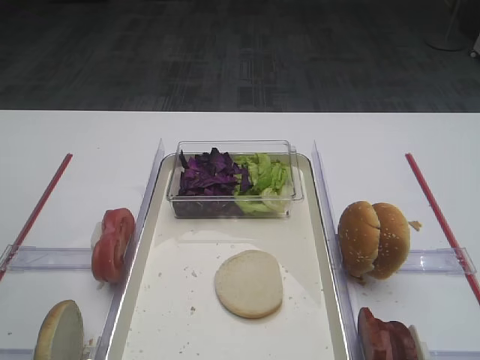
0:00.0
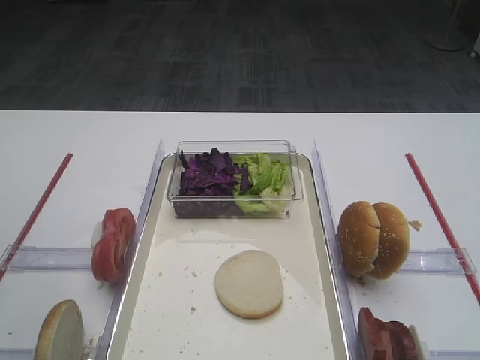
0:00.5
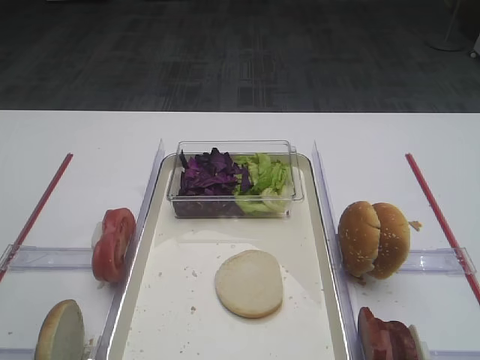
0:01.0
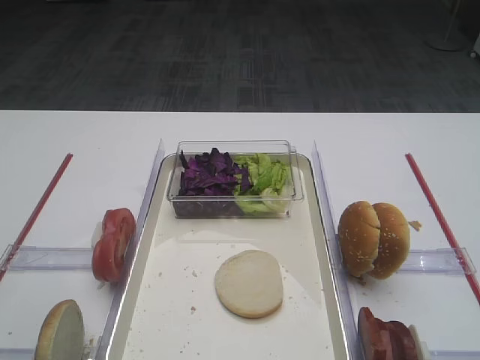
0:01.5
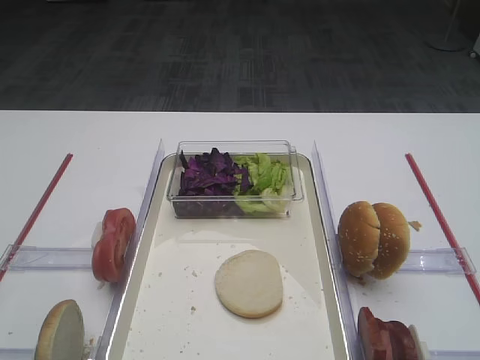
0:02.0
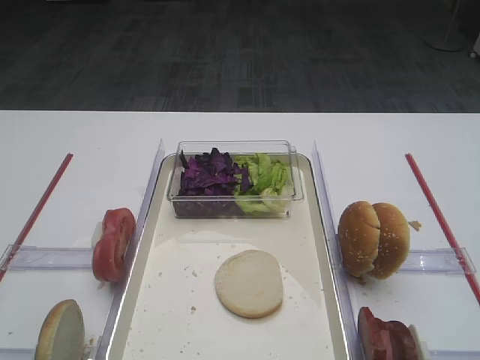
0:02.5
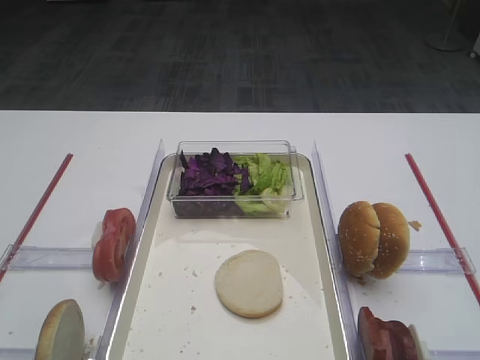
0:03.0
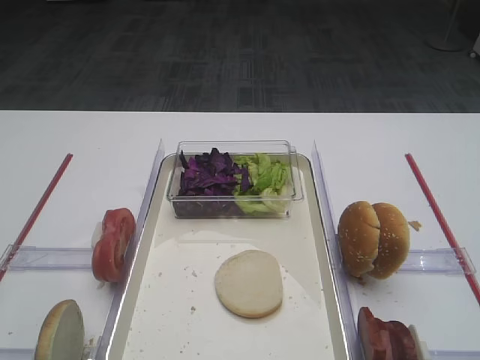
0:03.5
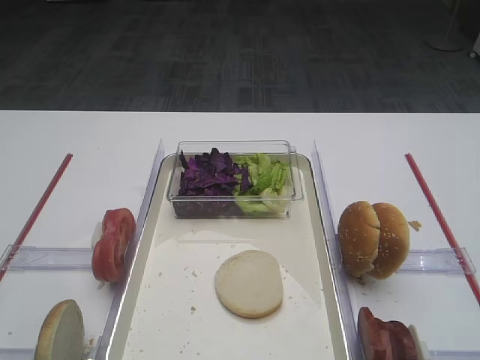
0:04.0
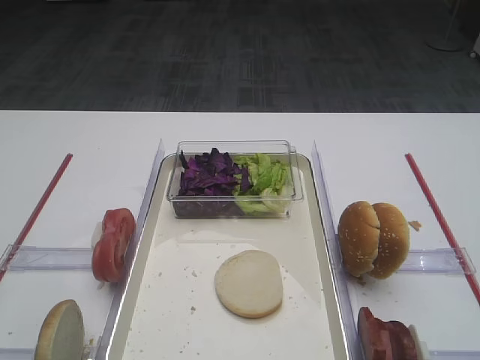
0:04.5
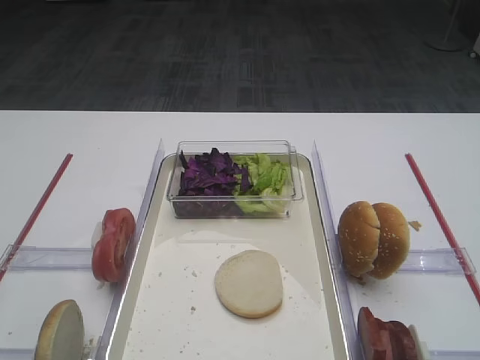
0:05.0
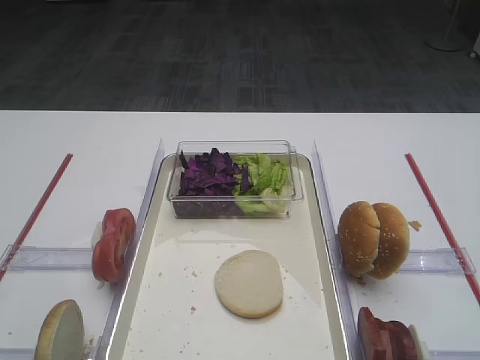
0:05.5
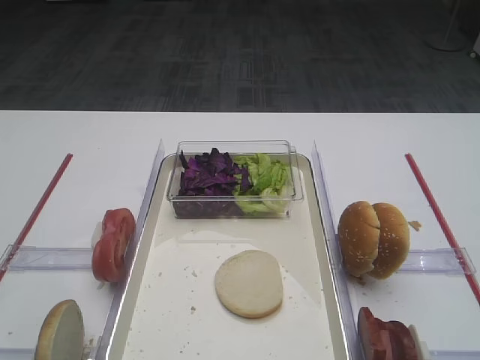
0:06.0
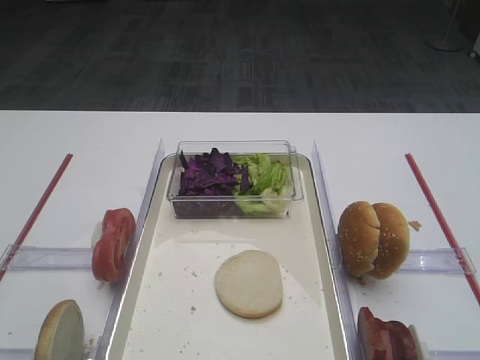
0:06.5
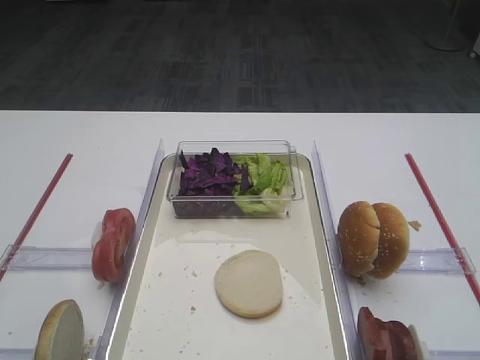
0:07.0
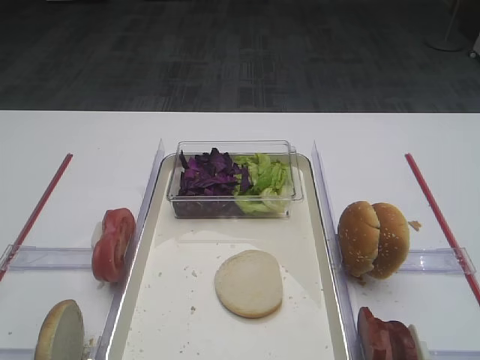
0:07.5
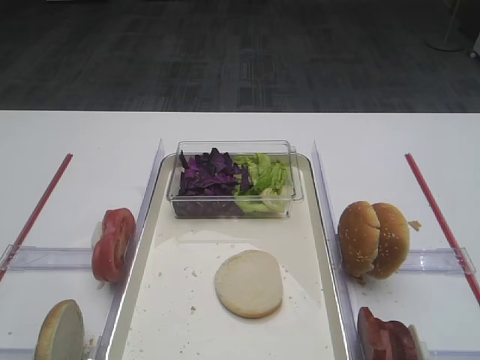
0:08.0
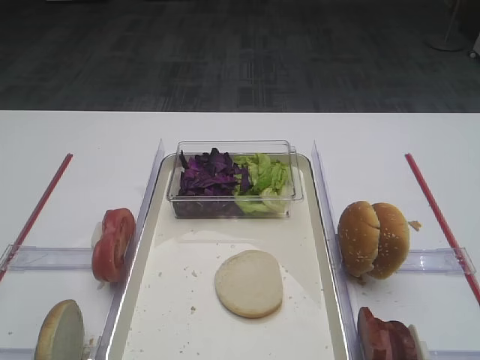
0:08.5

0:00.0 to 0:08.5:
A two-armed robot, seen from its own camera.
0:04.0 to 0:08.5: Both grippers stay about where they are.

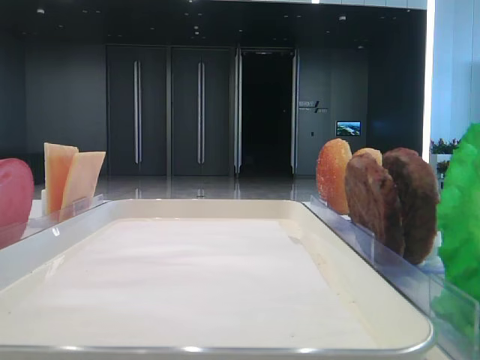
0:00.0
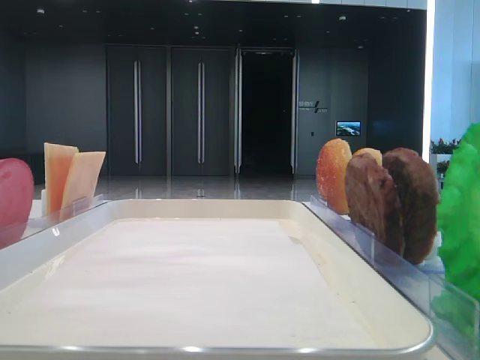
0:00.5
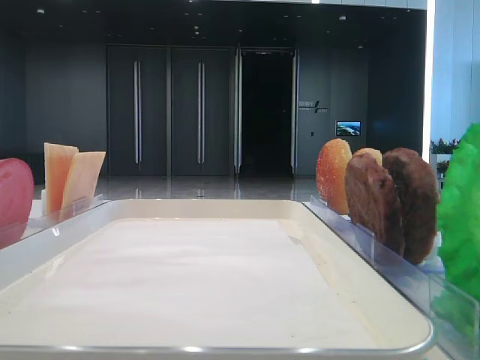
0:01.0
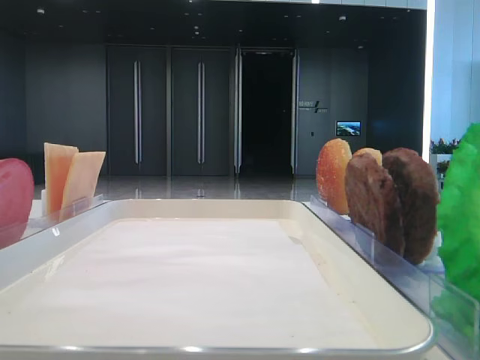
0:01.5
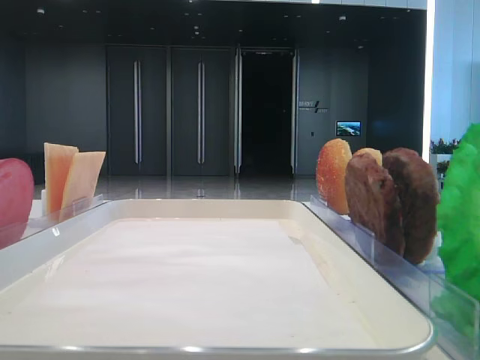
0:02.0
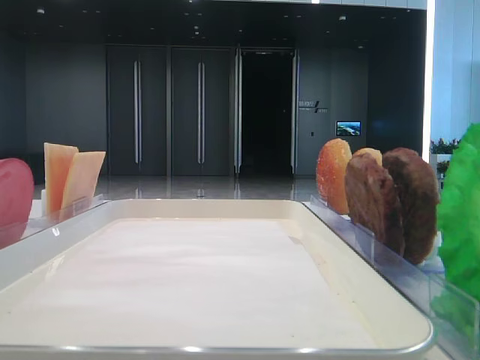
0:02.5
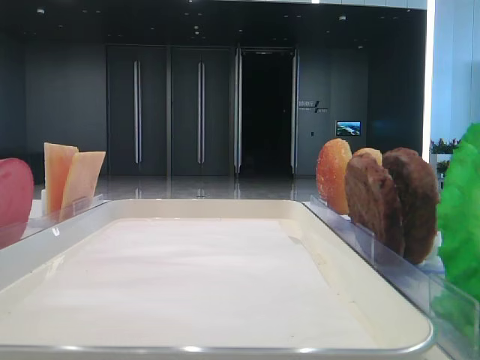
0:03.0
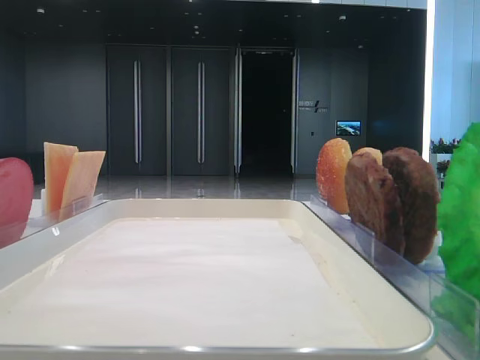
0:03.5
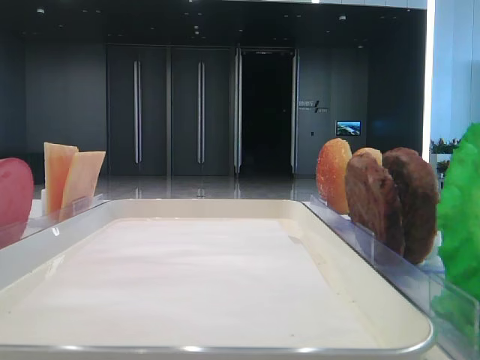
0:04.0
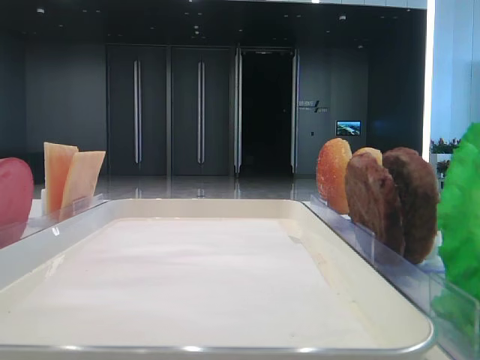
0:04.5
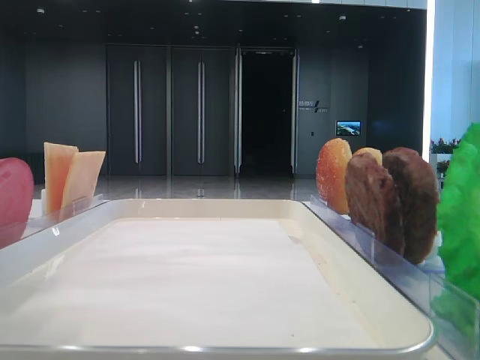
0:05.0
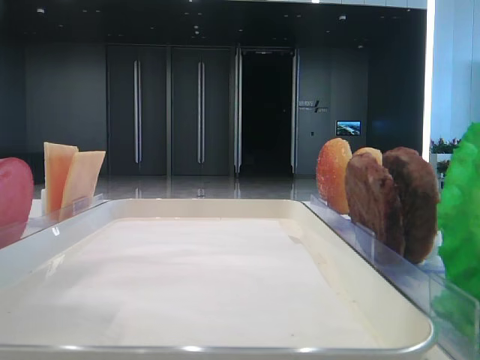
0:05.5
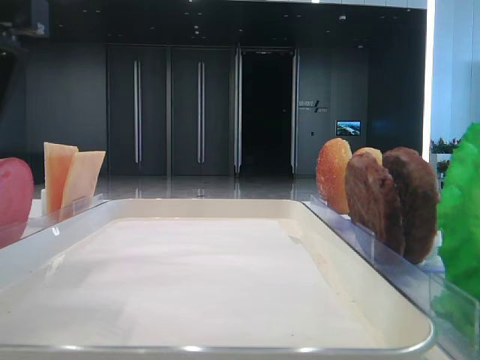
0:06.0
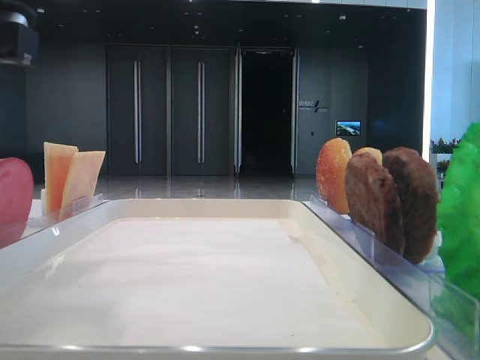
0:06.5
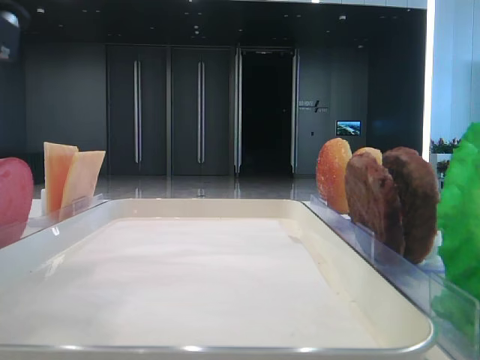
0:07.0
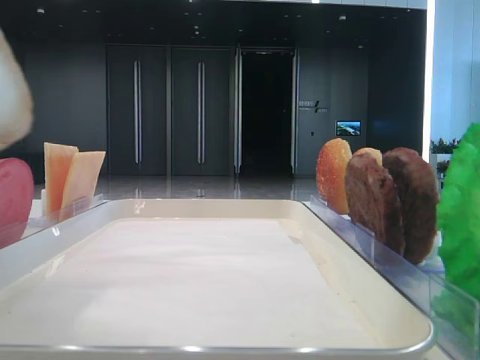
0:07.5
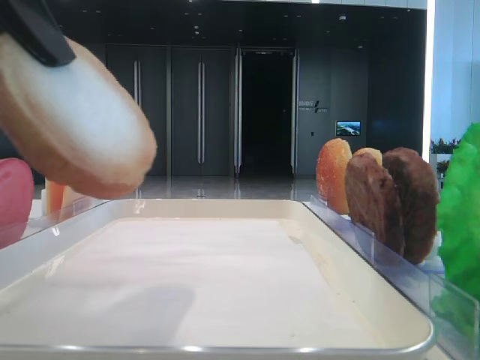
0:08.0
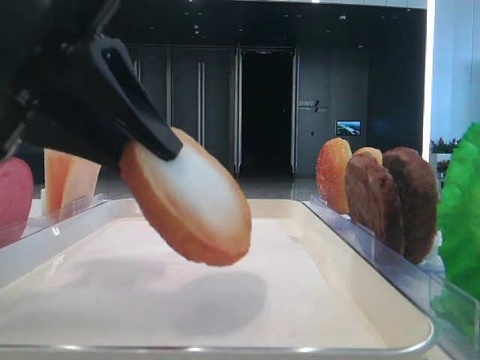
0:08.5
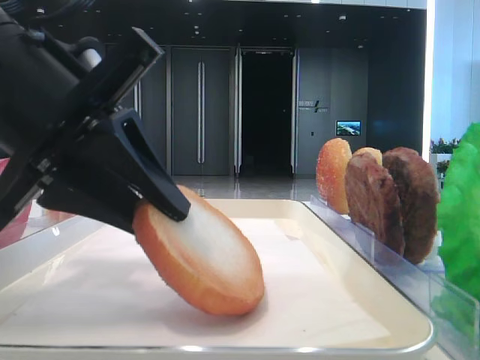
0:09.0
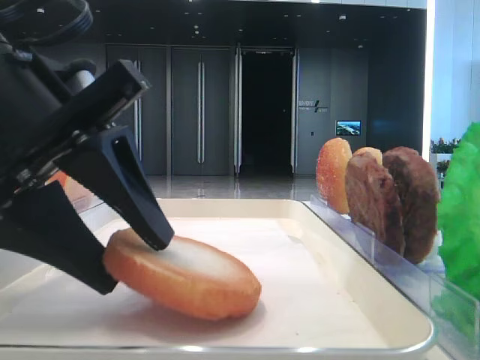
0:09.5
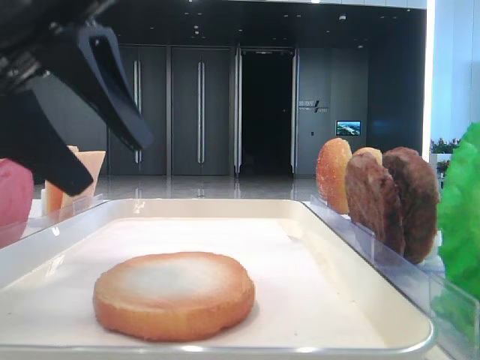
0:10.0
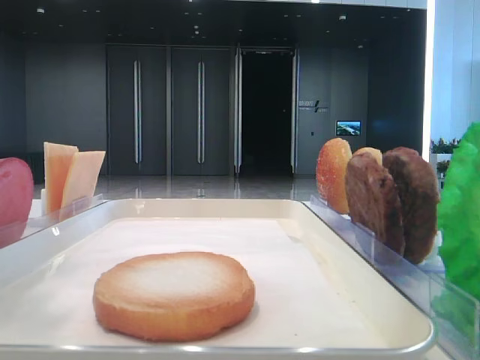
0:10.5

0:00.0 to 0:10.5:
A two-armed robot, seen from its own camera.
Step, 0:05.5 to 0:09.5: Place the bread on the tray with the left hand.
0:04.0 to 0:06.5: The left gripper moves to the right and downward, about 15 cm, and closes.
0:06.5 to 0:08.5: The left gripper moves roughly 5 cm.
0:08.5 to 0:10.5: The left gripper shifts approximately 15 cm to the left and upward, and opens.

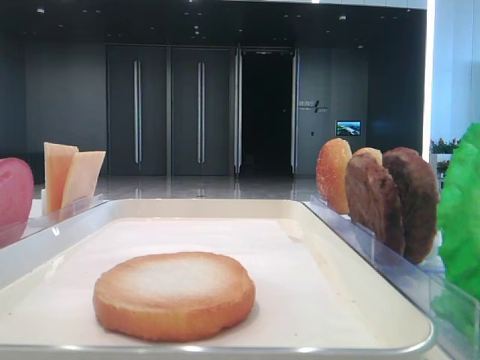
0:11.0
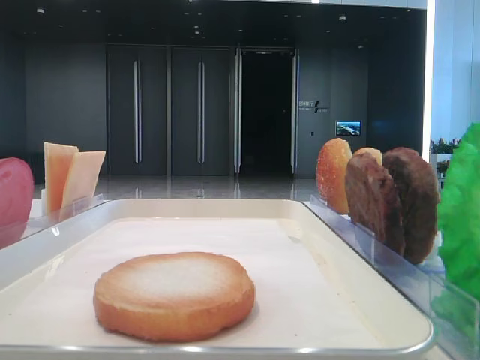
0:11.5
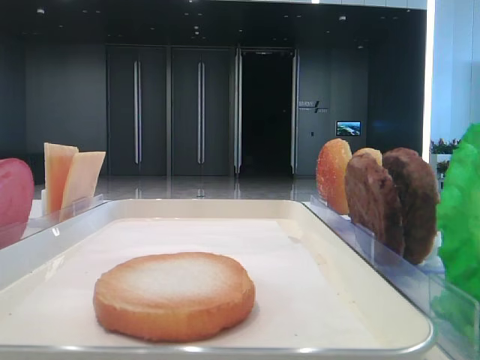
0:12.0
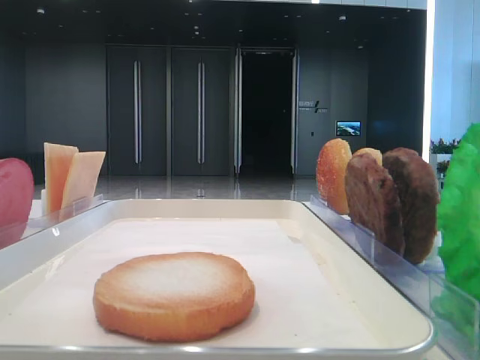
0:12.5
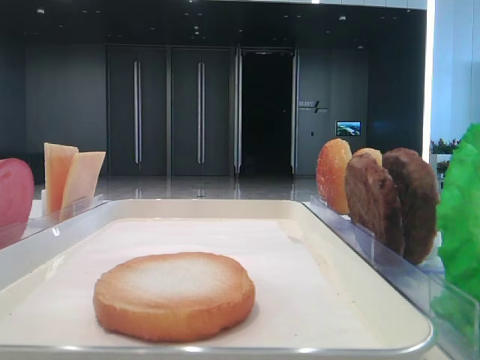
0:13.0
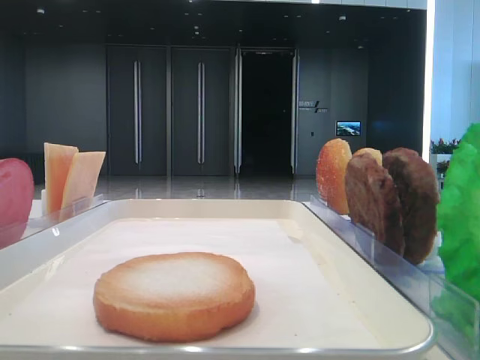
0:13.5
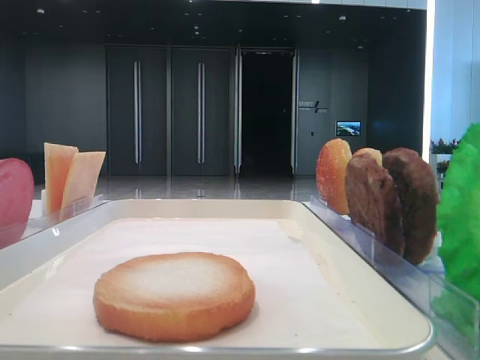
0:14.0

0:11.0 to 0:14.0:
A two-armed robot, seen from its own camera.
0:12.5 to 0:14.0: Both grippers stay put.

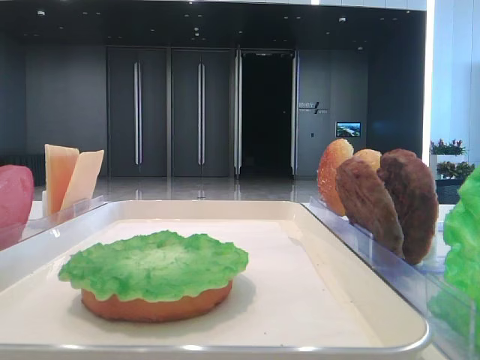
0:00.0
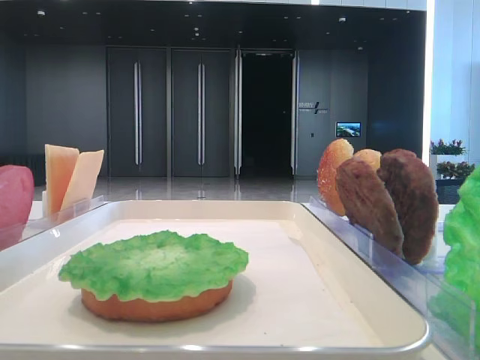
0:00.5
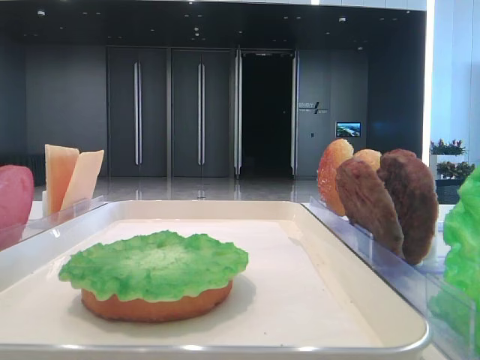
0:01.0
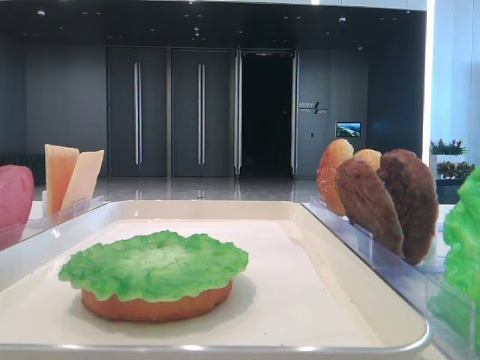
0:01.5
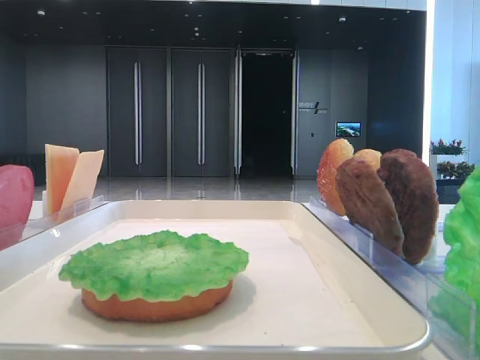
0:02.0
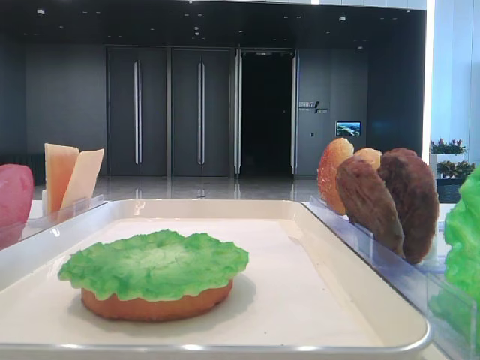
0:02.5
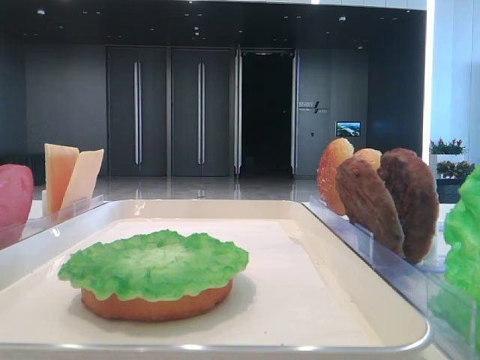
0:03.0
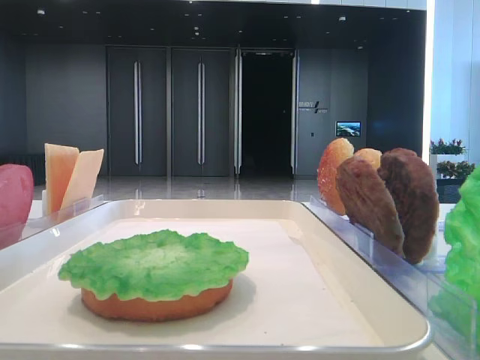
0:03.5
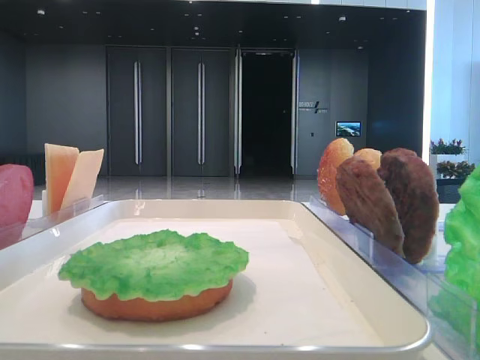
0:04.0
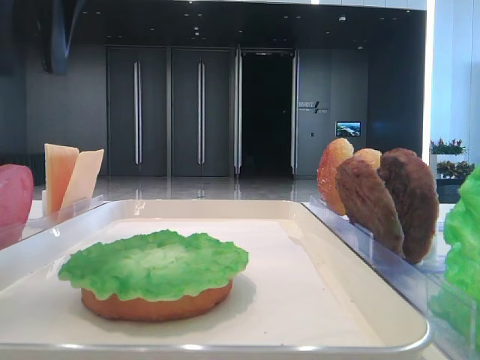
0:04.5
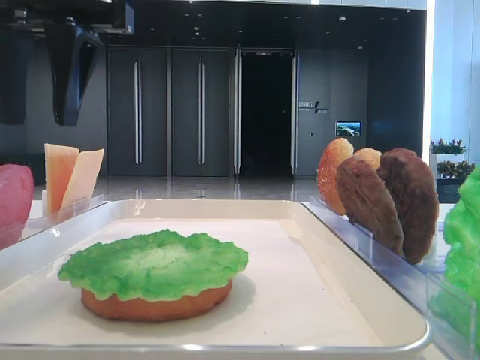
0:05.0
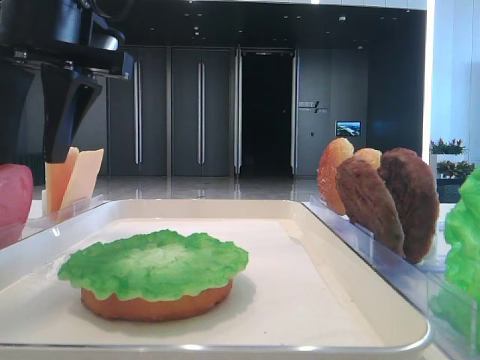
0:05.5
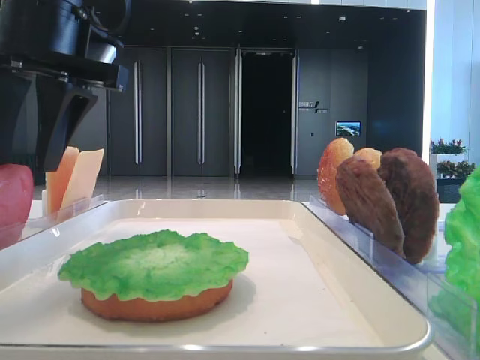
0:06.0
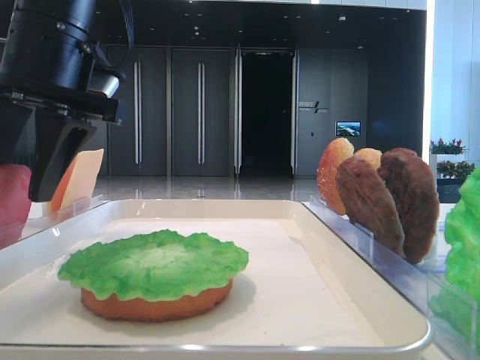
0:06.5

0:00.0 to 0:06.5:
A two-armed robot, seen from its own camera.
0:02.0 to 0:04.5: The left gripper shifts approximately 20 cm forward and to the right.
0:04.5 to 0:06.5: The left gripper shifts approximately 10 cm downward.
